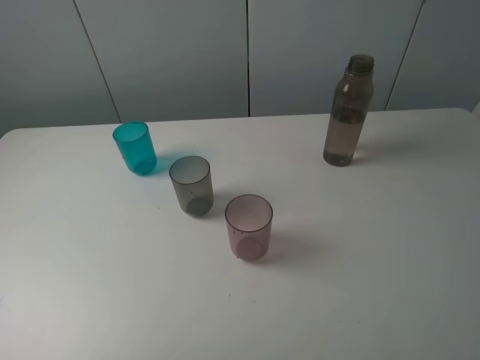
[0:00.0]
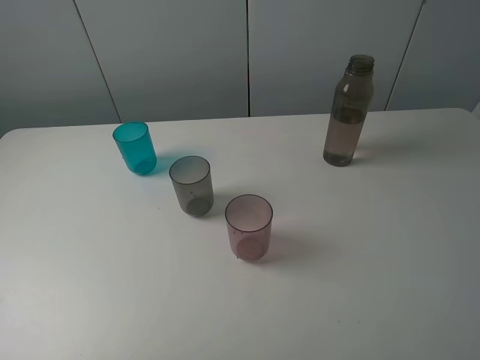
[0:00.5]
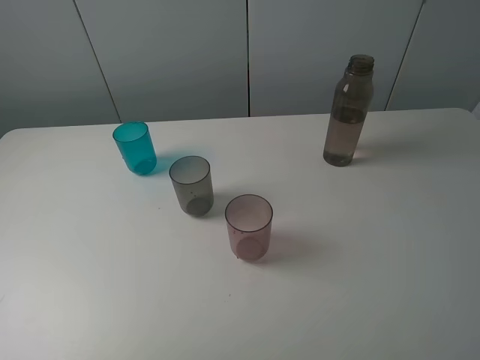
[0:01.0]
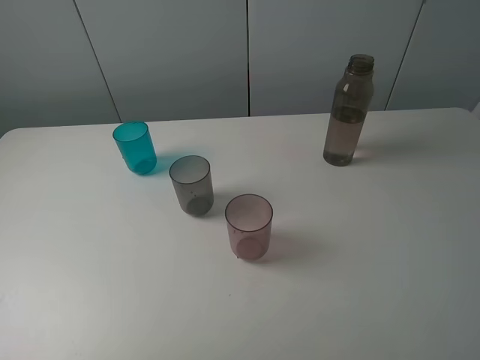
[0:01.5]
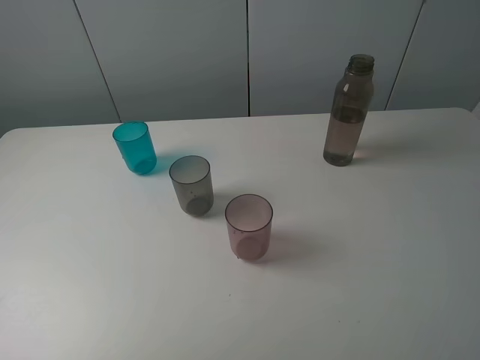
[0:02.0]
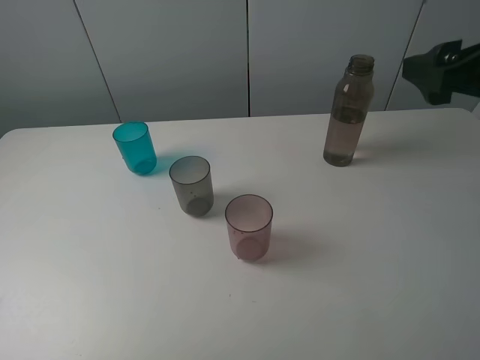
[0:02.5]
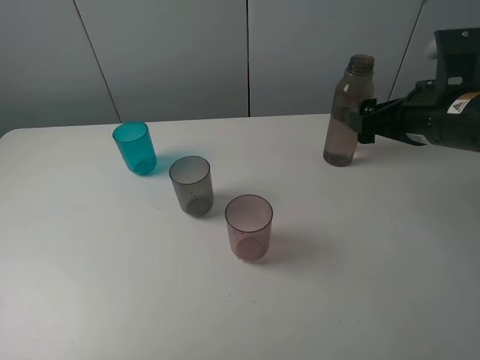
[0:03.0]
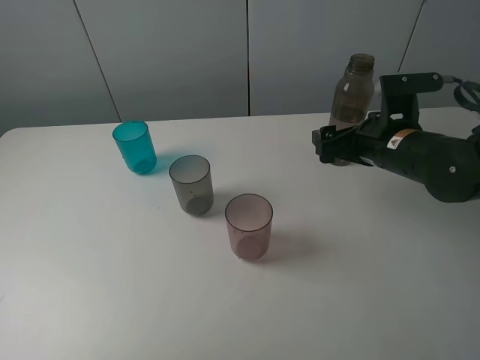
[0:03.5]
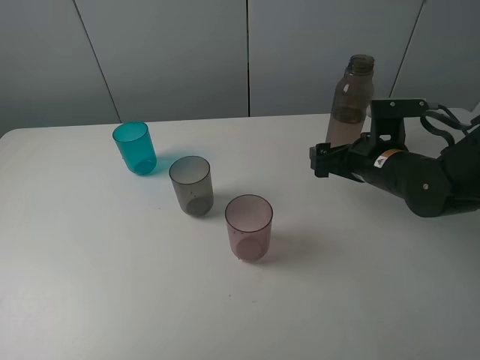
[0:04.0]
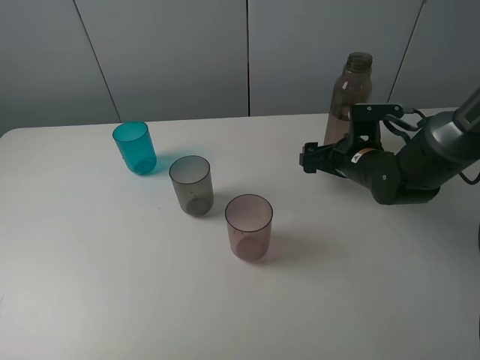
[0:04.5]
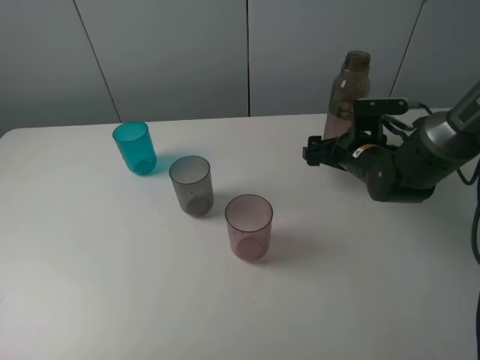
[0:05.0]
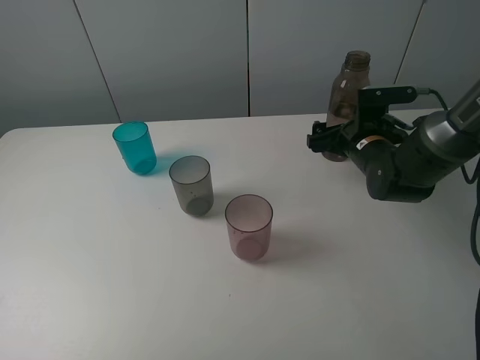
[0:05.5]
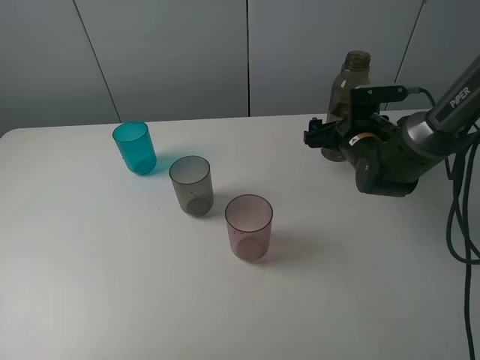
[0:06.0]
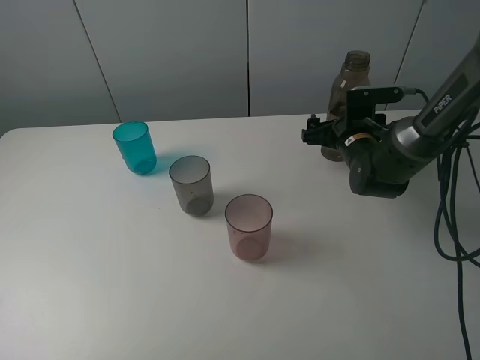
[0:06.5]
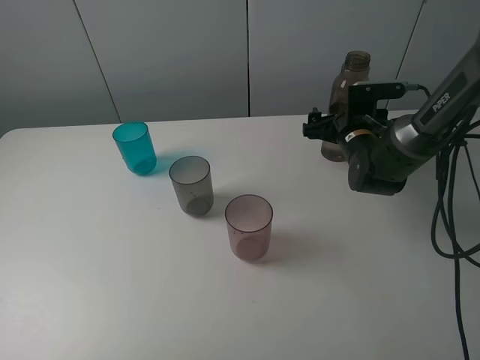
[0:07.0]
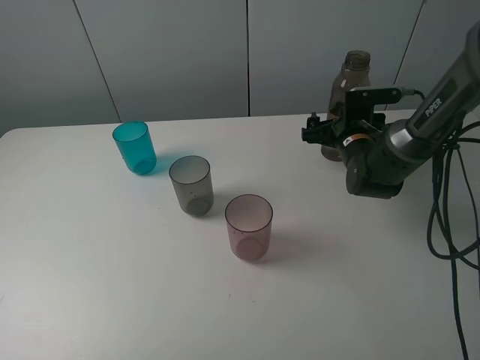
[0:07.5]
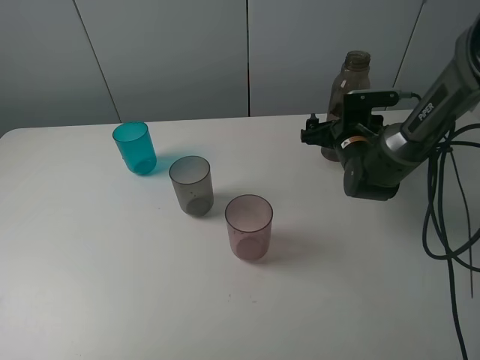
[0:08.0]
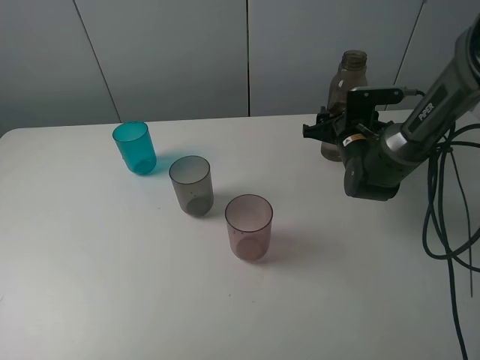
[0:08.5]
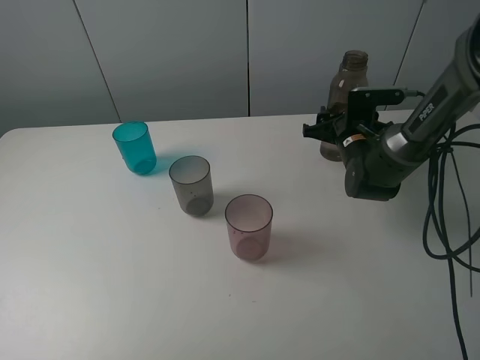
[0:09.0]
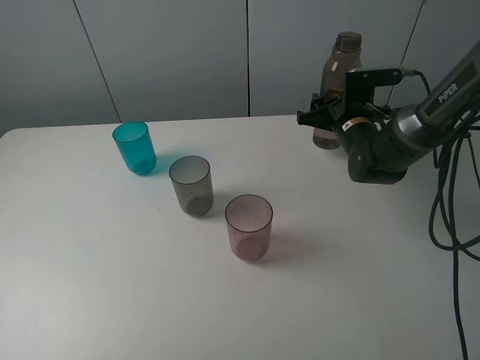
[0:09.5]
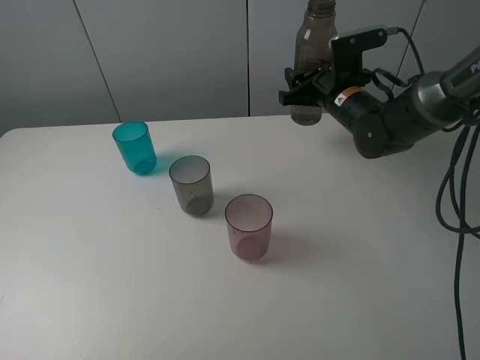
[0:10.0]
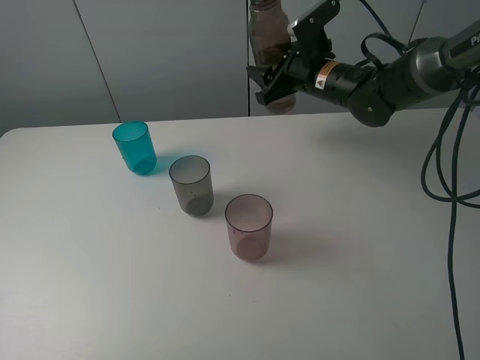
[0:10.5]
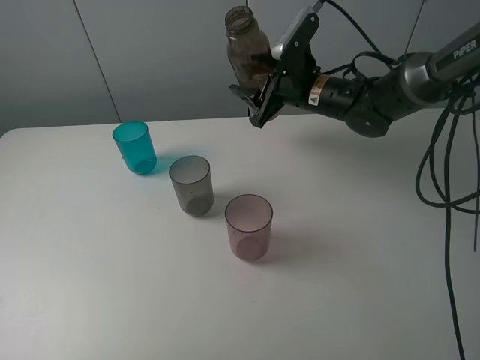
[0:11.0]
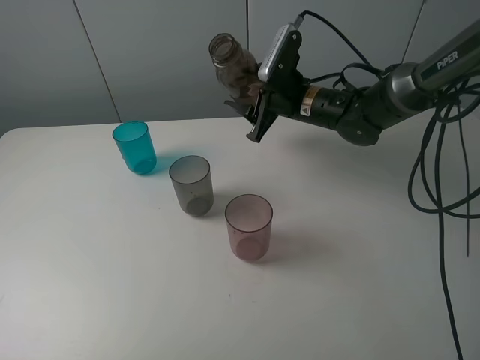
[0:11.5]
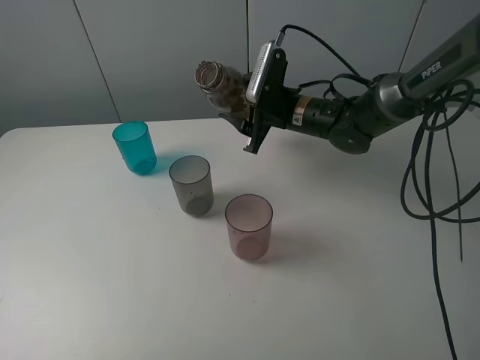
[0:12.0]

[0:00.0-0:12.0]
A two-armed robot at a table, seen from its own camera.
Task of the whole recording: pick up the bottle filled with water and pour water into the middle cup of the three cups.
Step, 0:00.0 to 0:08.5: Grasp the transparent bottle with the right gripper.
0:02.0 to 0:04.0: The right gripper goes some 30 cm downward and forward.
0:04.0 to 0:06.0: The right gripper goes some 10 cm forward.
0:06.0 to 0:08.0: The grippers make only small movements.
0:08.0 to 0:10.0: The right gripper shifts approximately 10 cm upward, and closes.
0:10.0 to 0:12.0: The right gripper moves to the left, roughly 5 cm.

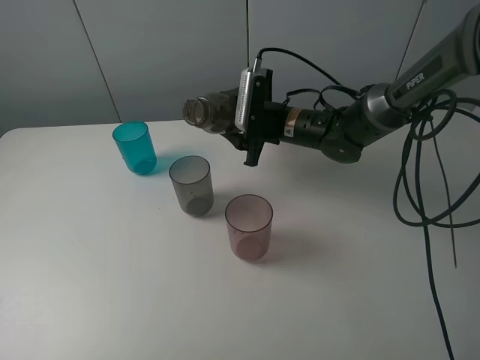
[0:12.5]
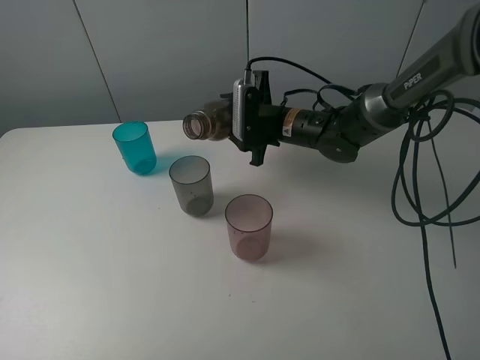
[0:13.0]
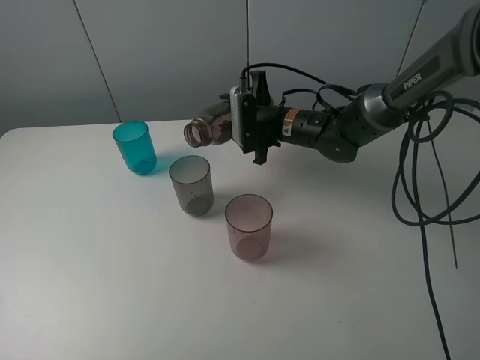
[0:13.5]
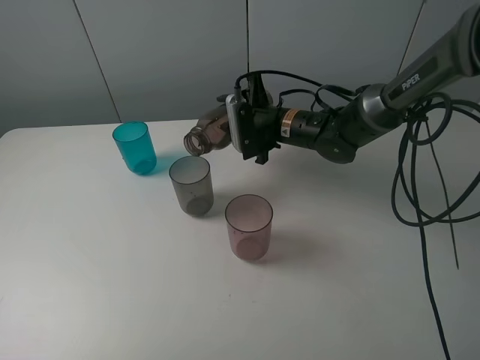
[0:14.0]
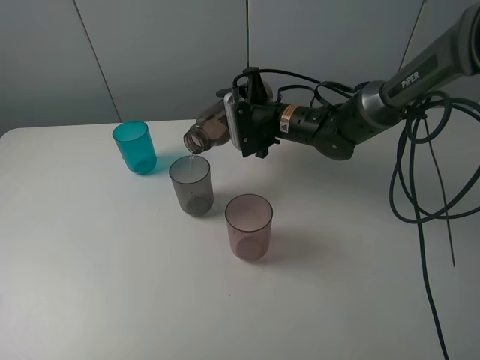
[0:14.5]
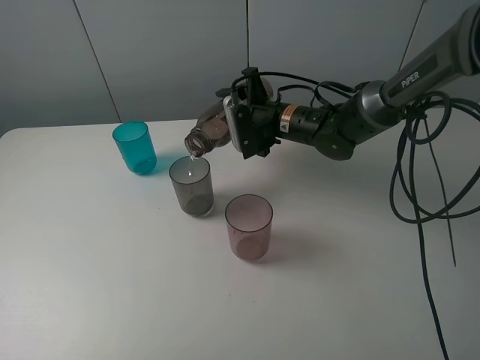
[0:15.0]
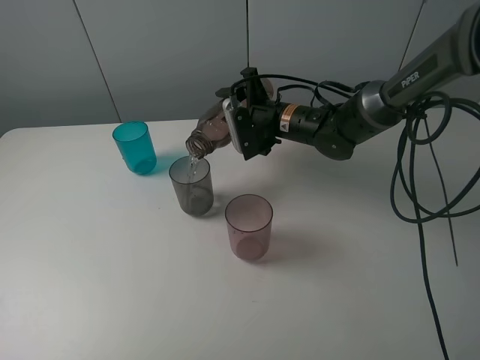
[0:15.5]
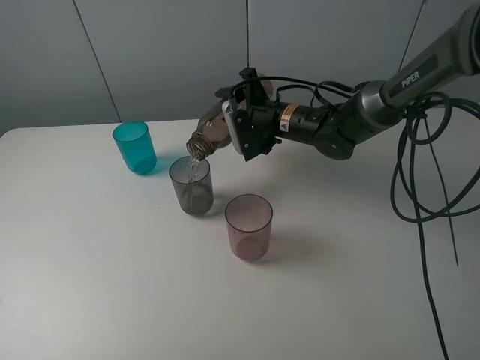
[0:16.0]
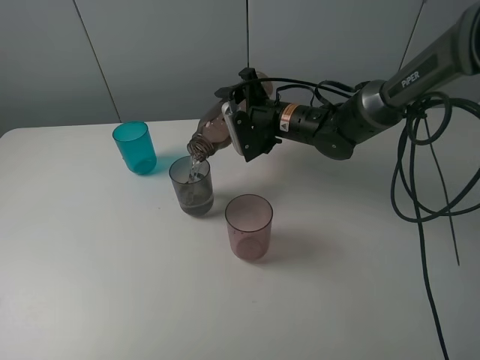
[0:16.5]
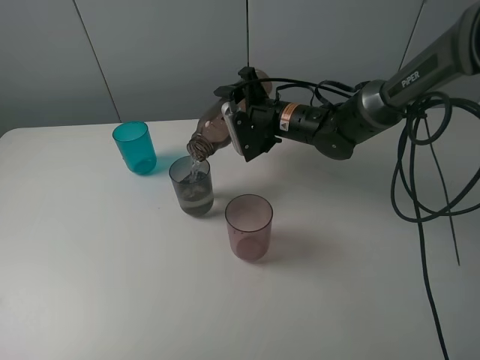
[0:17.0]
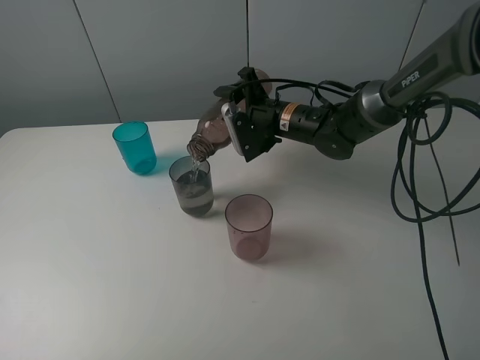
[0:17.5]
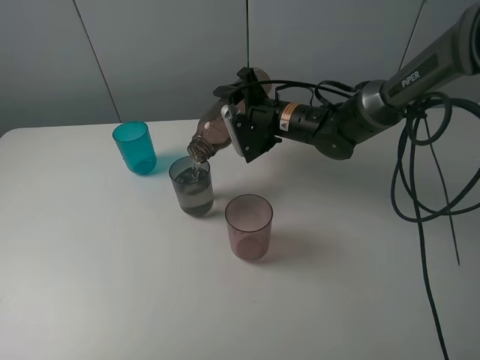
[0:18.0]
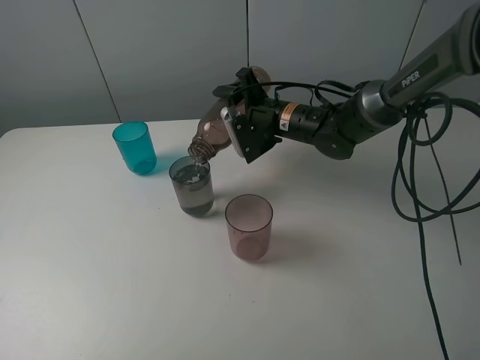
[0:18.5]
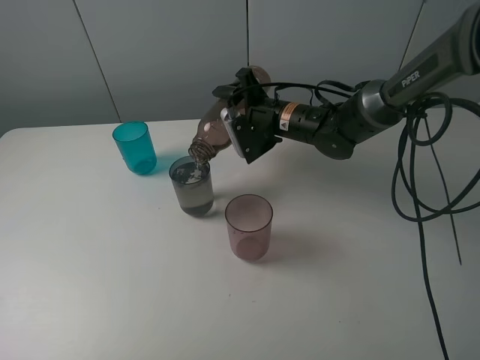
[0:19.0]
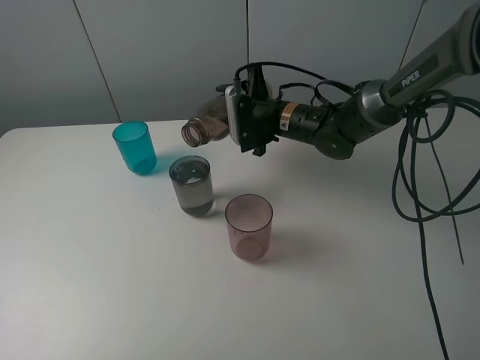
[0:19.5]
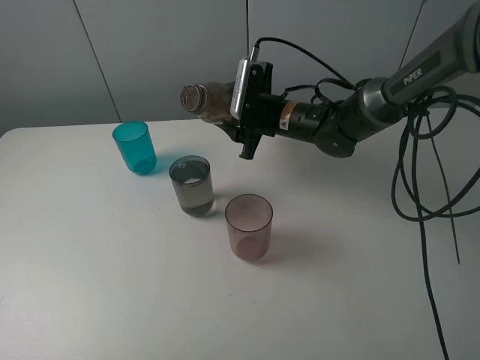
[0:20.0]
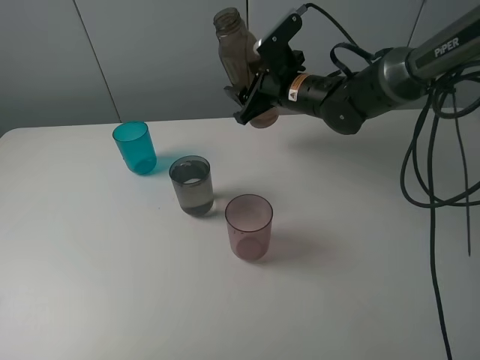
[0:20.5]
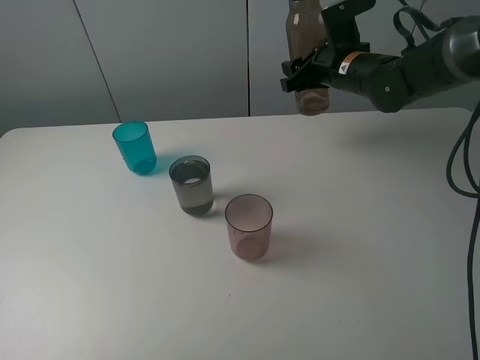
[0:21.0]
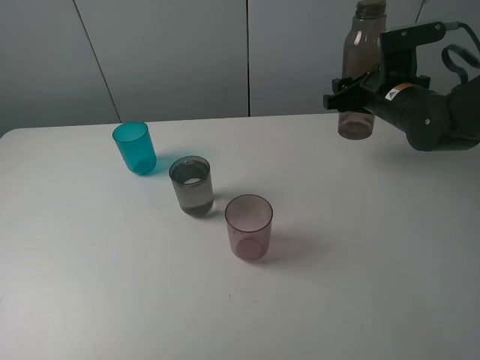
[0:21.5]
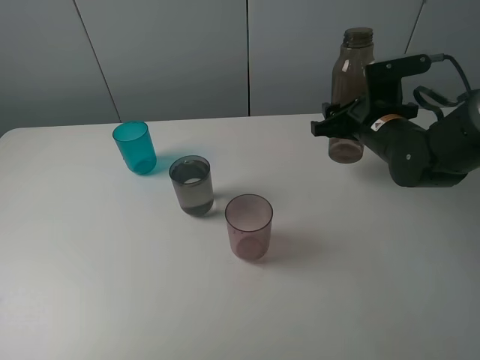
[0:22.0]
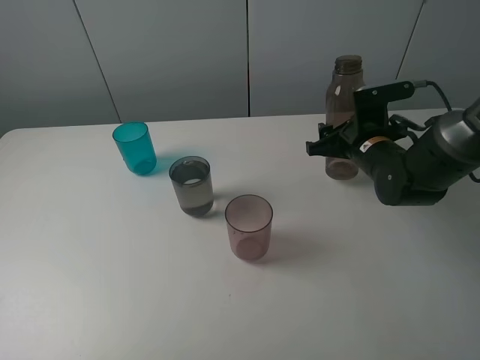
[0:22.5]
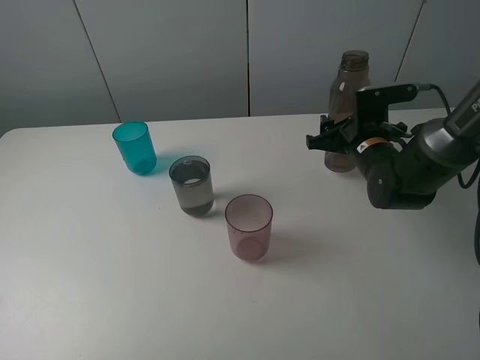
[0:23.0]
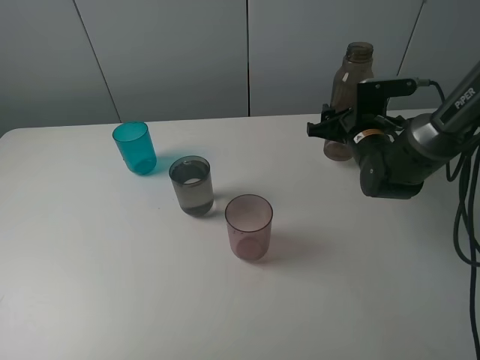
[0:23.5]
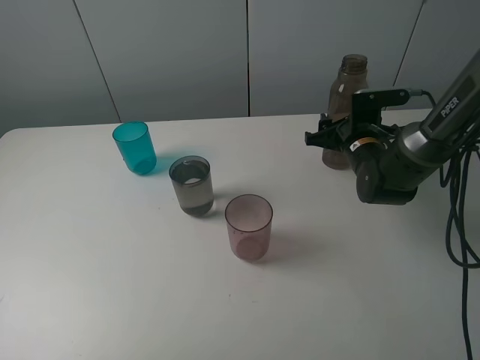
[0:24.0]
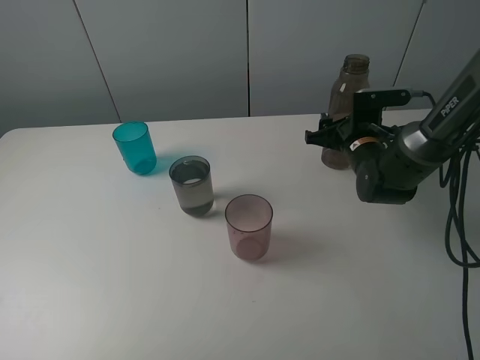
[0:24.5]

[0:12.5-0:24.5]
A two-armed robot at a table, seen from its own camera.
Task of the whole recording: pick up the bottle filled with water and pour water into the middle cup of the three cups.
0:14.5 to 0:18.5: The grippers make only small movements.
0:18.5 to 0:20.5: The right gripper changes place by approximately 5 cm.
0:20.5 to 0:22.5: The right gripper moves to the right, backward and downward, some 15 cm.
0:22.5 to 0:24.5: There are only small adjustments of the grippers.

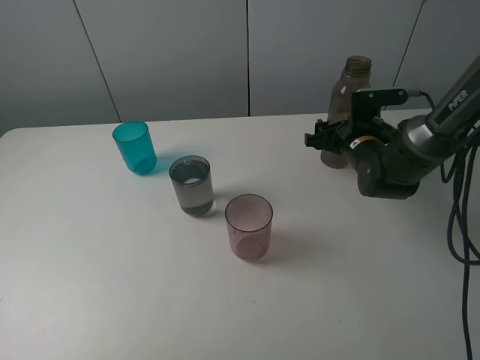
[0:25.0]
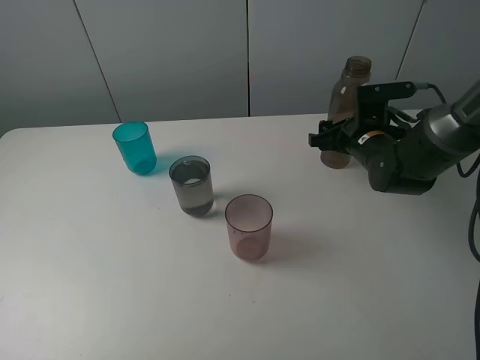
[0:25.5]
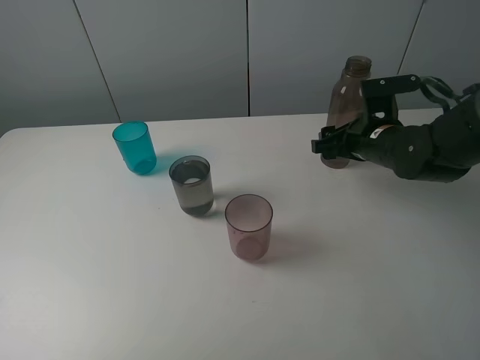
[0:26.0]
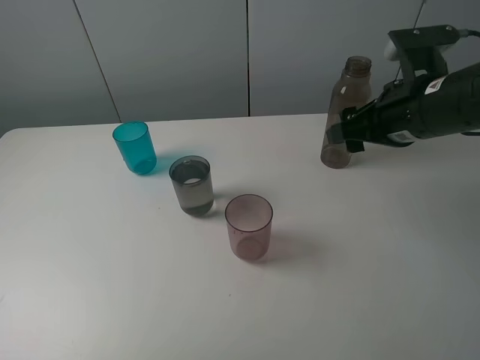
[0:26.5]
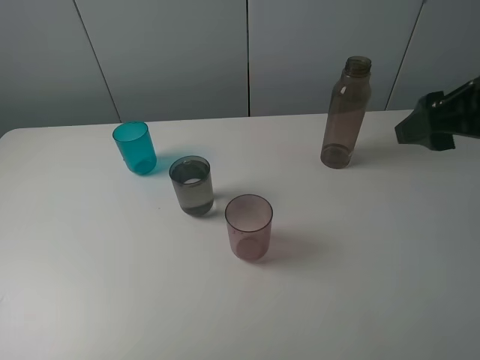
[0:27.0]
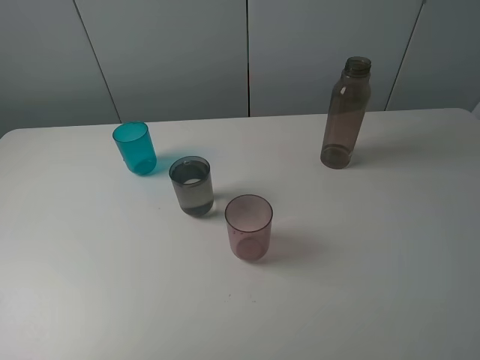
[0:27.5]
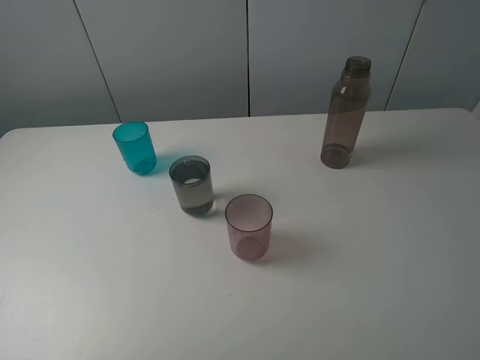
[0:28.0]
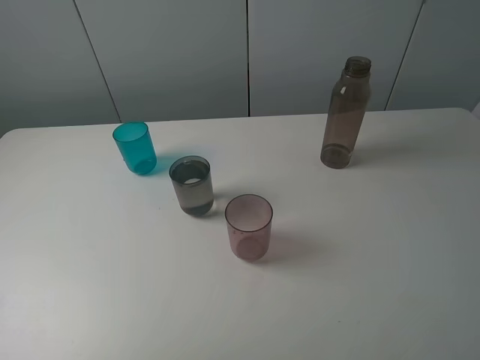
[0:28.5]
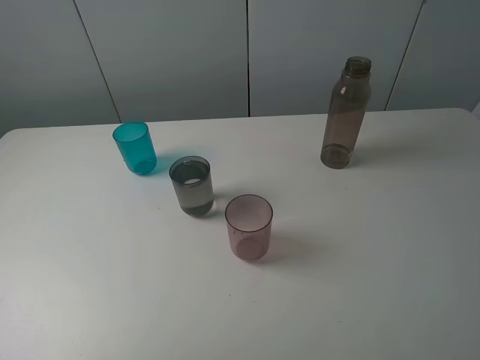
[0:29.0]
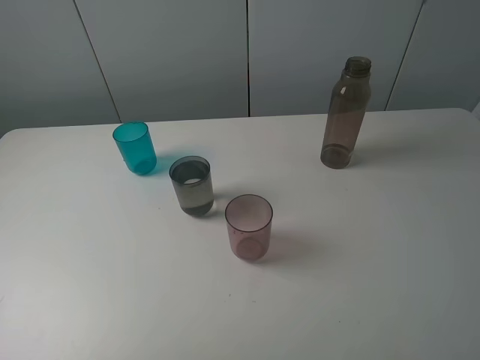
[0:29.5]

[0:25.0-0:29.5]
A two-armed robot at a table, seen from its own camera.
Task of the whole recording: pick up the bottle filled with water and pour water into the middle cup of the three cups.
Step, 0:25.0 to 0:27.0: Place the transparent bottle with the right gripper.
0:25.0 to 0:27.0: The right gripper moves upward and backward, approximately 30 cm.
0:27.0 to 0:29.5: The right gripper goes about 20 cm backward.
